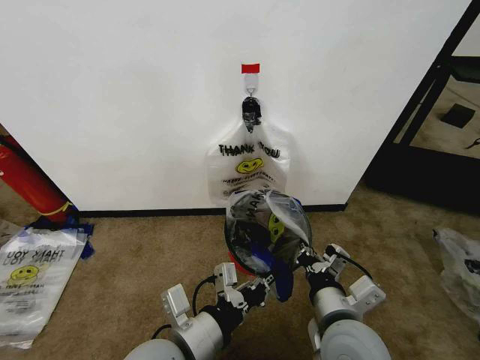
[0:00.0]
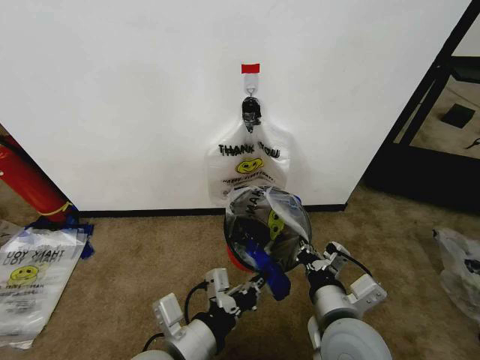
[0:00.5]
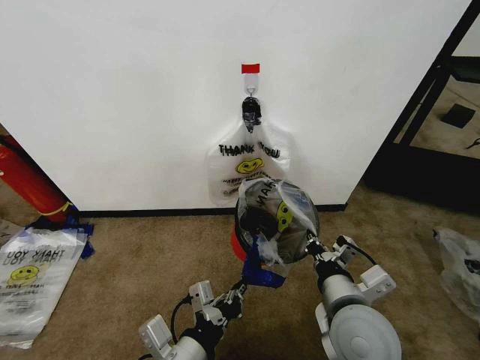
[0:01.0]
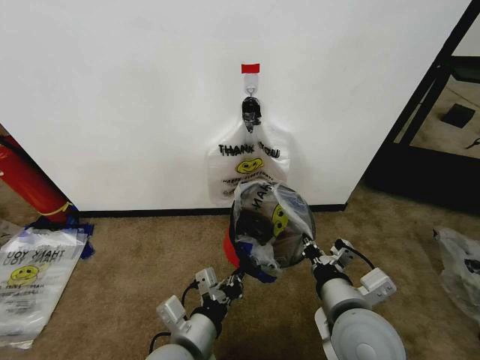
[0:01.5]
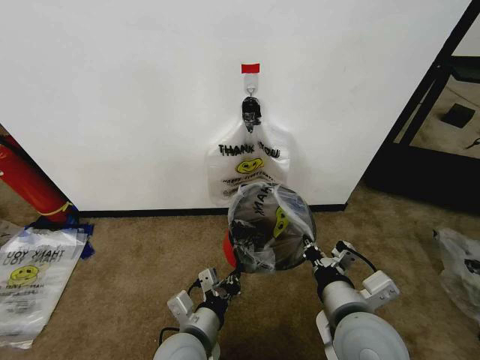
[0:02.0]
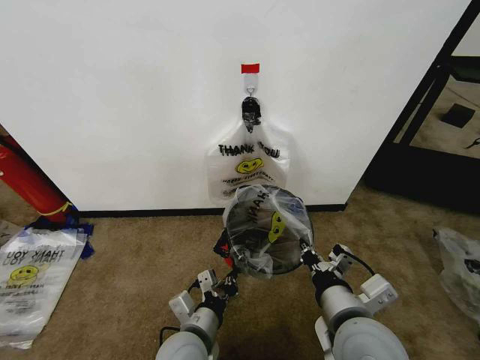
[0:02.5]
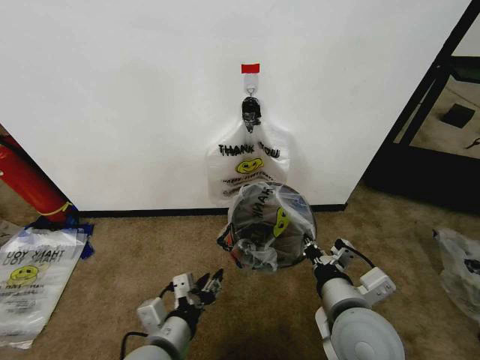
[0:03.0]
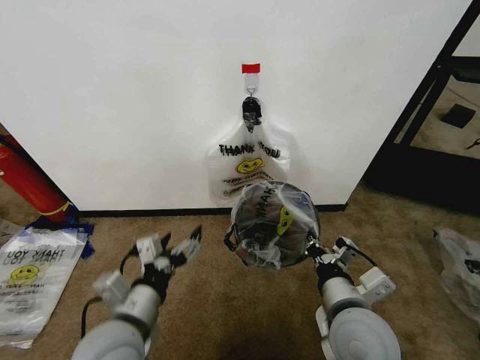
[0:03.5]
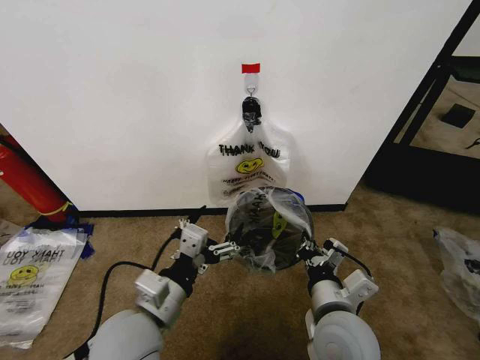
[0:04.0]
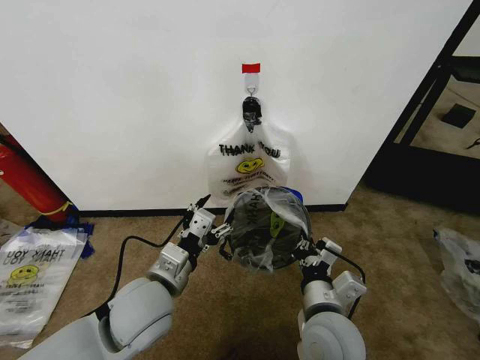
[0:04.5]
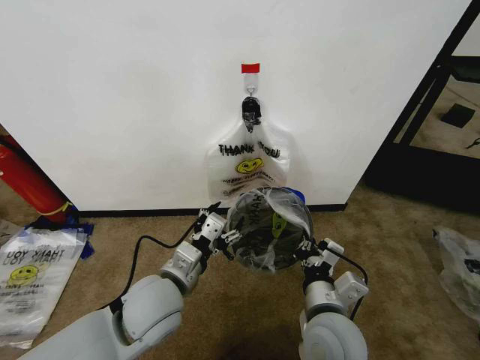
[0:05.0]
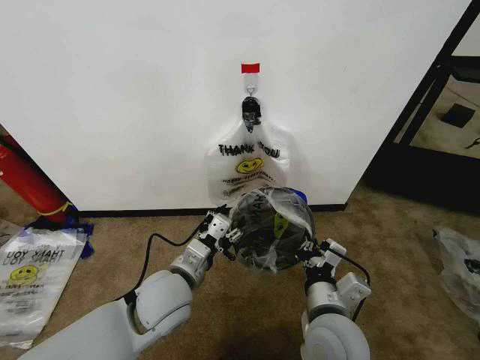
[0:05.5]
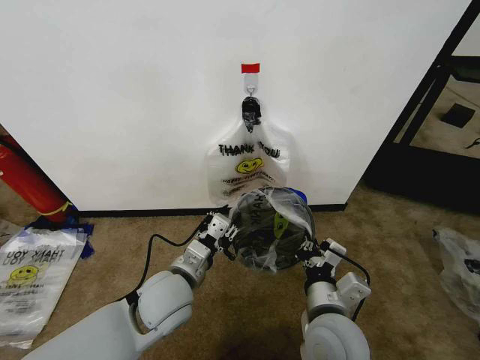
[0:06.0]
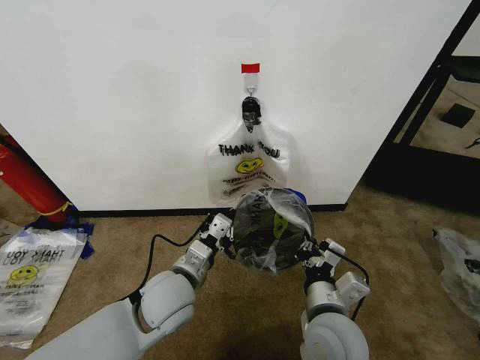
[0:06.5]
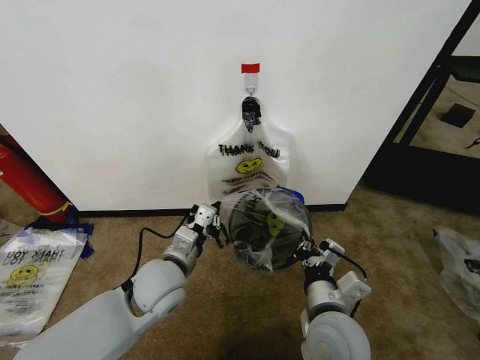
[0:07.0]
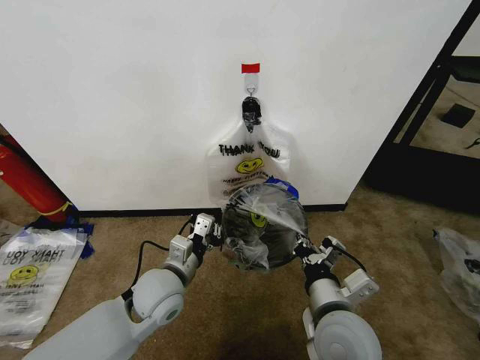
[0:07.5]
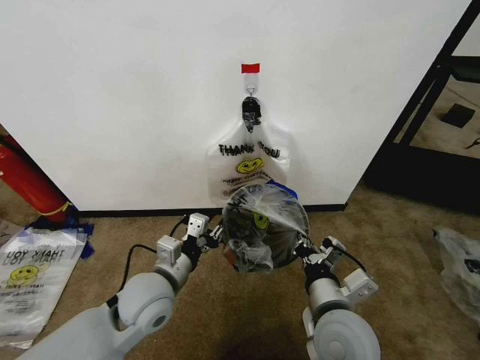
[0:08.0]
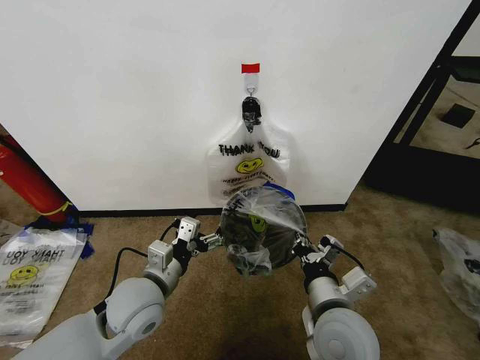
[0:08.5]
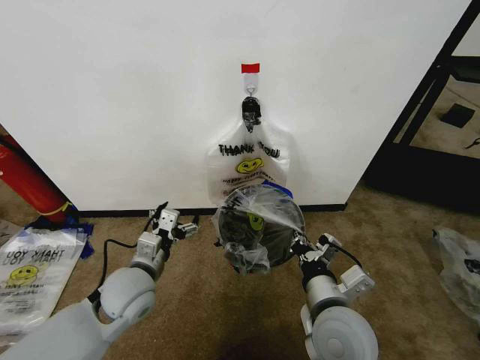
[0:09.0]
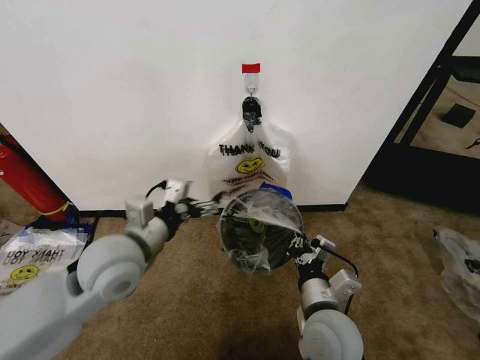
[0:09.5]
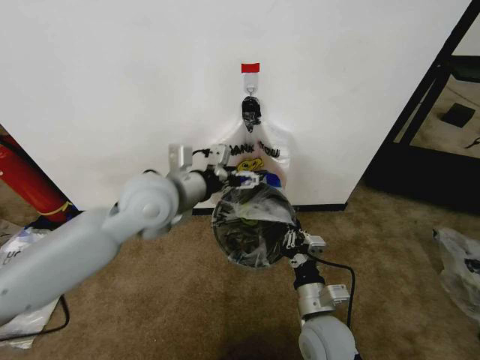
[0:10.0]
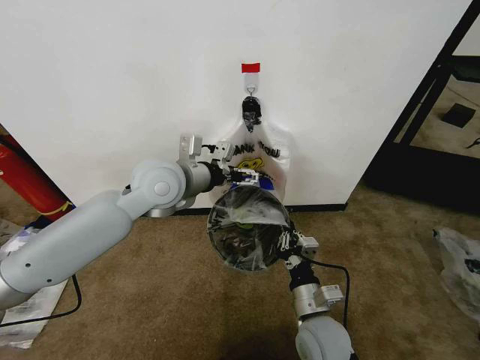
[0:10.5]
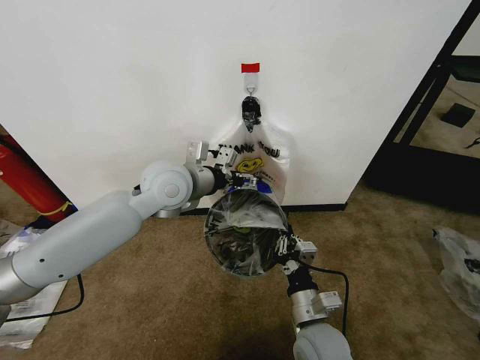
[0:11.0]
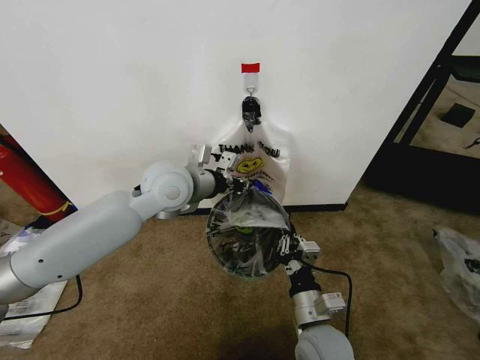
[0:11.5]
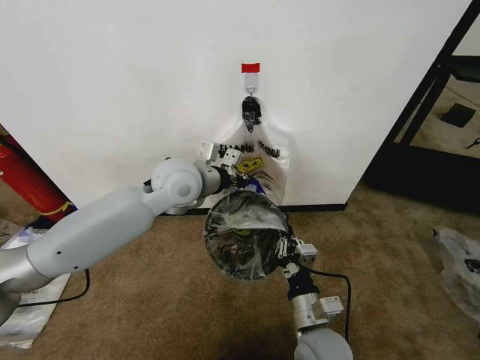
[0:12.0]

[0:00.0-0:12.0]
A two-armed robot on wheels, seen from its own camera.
Task of the whole recording: Pick up the garbage bag from the wall and place it over the trash bin.
0:00.0 to 0:02.0: The left gripper shifts about 10 cm downward.
0:02.0 to 0:04.0: The left gripper travels upward and to the left by about 10 cm, and opens.
0:04.0 to 0:06.0: The left gripper travels forward by some 10 cm, and closes up.
0:06.0 to 0:08.0: The left gripper closes and opens again.
0:08.0 to 0:10.0: The left gripper heads upward and forward, covering some 20 cm, and opens. The right gripper is displaced downward by some 10 cm.
0:10.0 to 0:12.0: The left gripper heads forward, covering about 5 cm, and closes up.

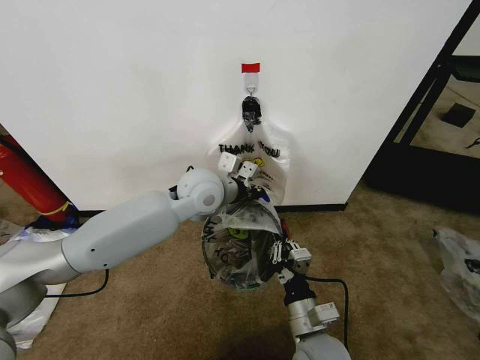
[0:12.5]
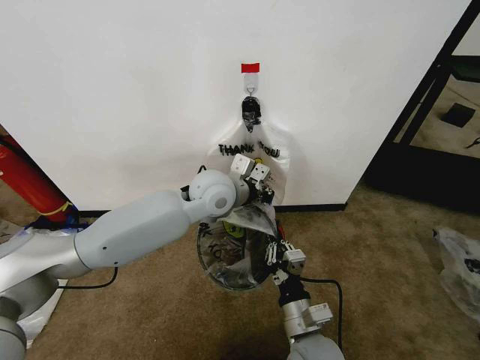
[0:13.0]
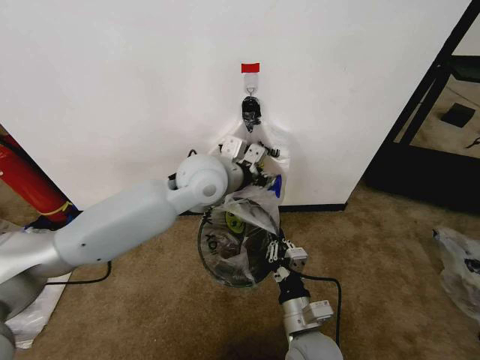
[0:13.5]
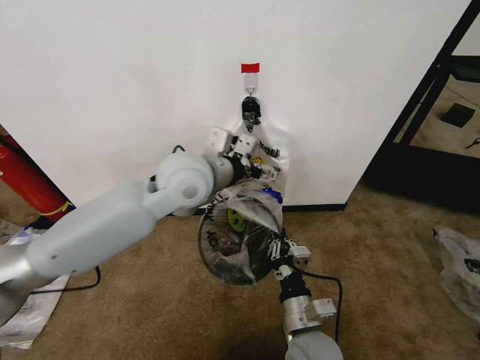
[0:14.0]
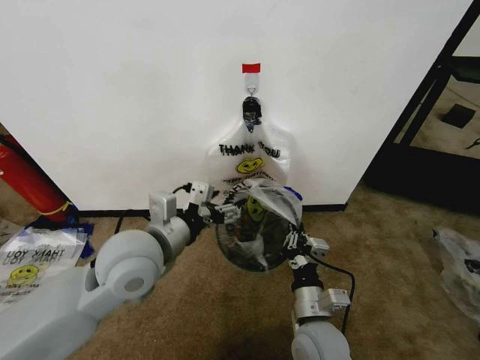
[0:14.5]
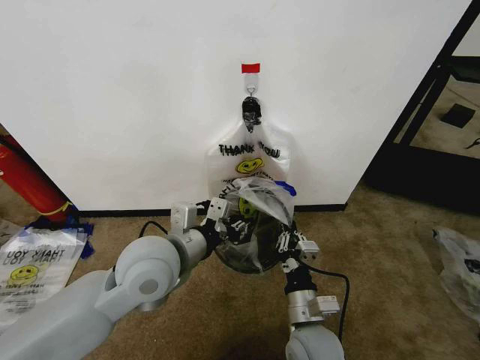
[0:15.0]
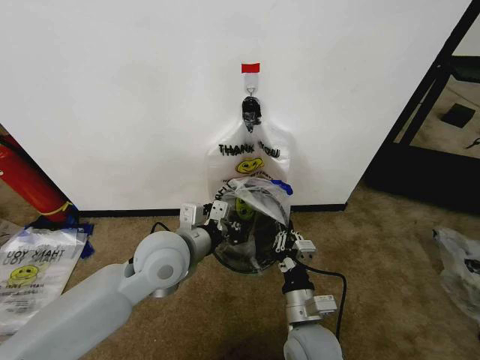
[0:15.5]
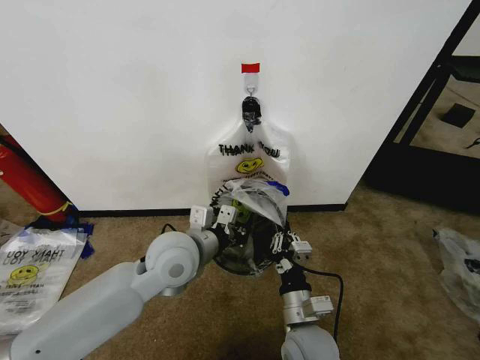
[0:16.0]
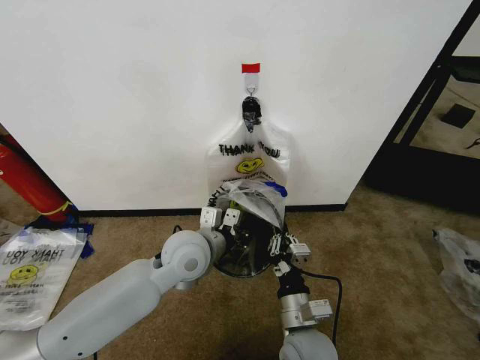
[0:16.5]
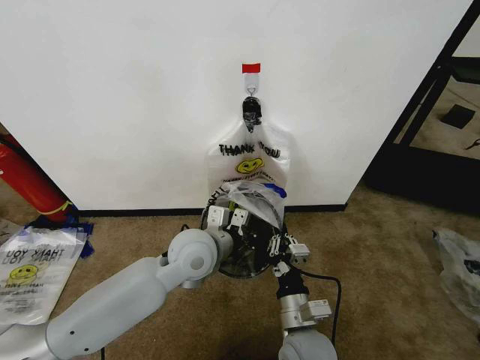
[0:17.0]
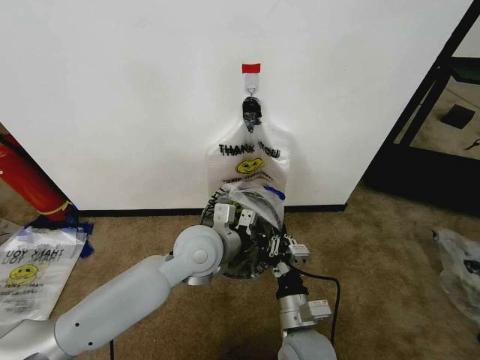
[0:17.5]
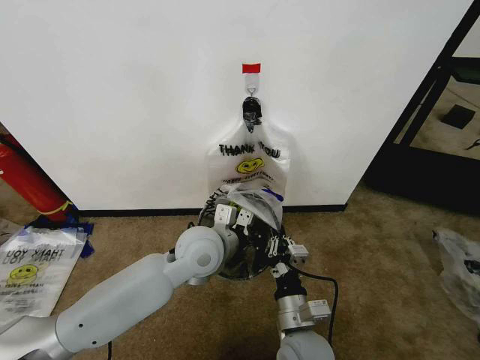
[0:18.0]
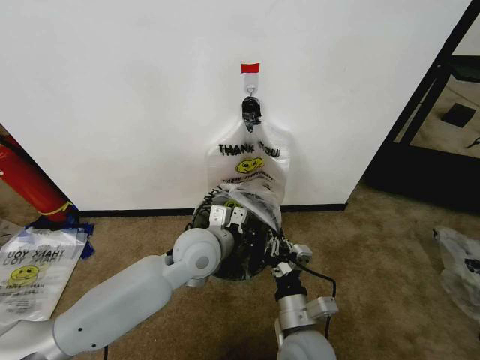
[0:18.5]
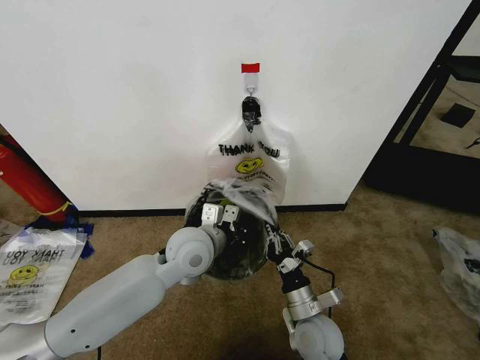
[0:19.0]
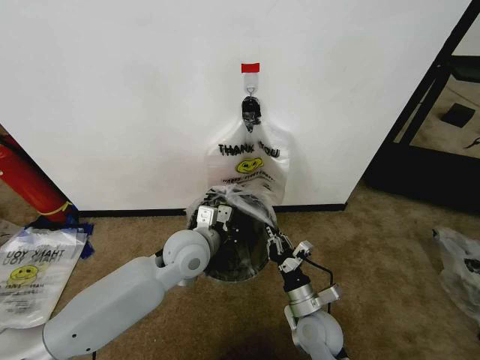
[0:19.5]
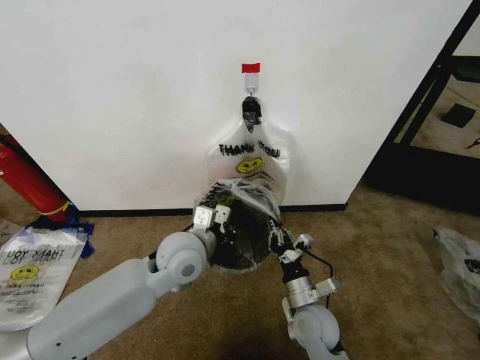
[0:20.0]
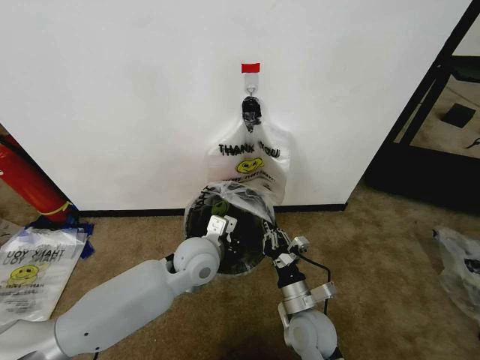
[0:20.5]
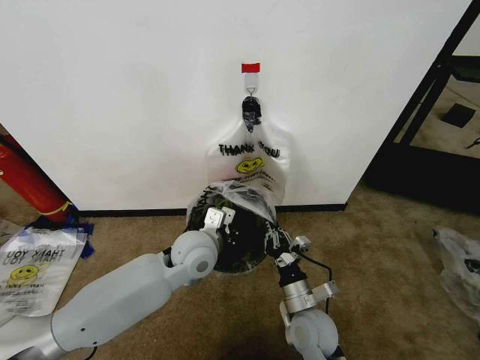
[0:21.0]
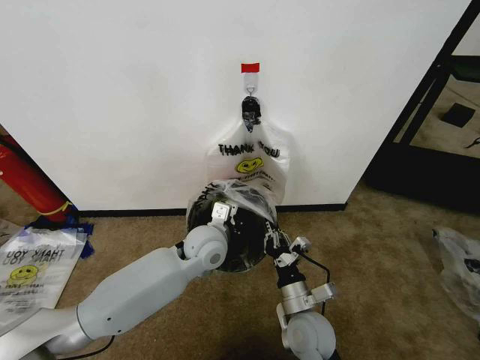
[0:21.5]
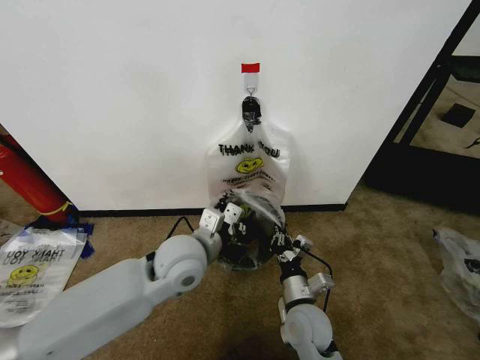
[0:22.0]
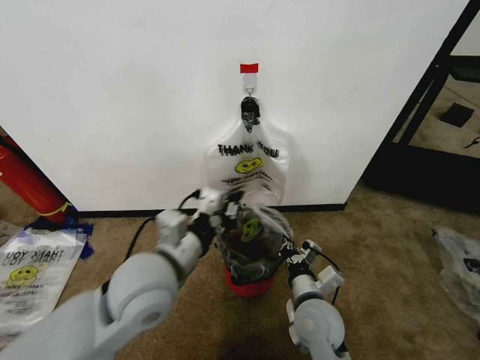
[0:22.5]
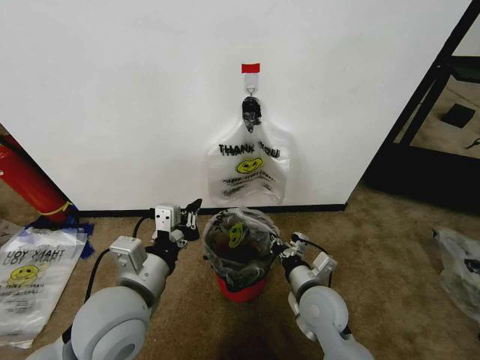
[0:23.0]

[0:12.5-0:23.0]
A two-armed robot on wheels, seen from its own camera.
Task of the whole recording: Pick up the garbage bag from the wall and place it over the trash bin.
0:12.5 to 0:14.5: The left gripper travels backward and to the left by approximately 20 cm, and opens its fingers.
0:14.5 to 0:16.5: The left gripper heads downward, to the right and forward, covering roughly 10 cm, and closes its fingers.
0:16.5 to 0:19.0: The right gripper ends up about 5 cm from where it was.
0:19.0 to 0:21.0: There are only small adjustments of the grippers.
0:21.0 to 0:23.0: The right gripper ends up roughly 5 cm from where it was, while the left gripper shifts some 20 cm backward, to the left and upward.

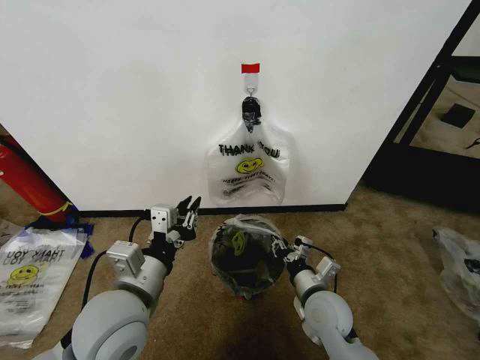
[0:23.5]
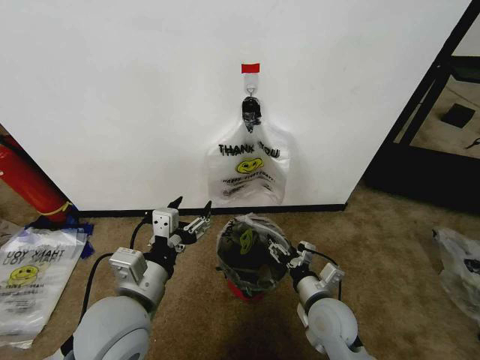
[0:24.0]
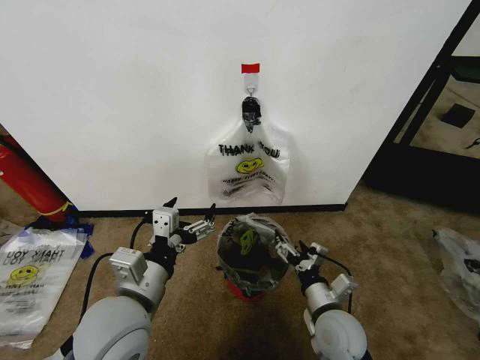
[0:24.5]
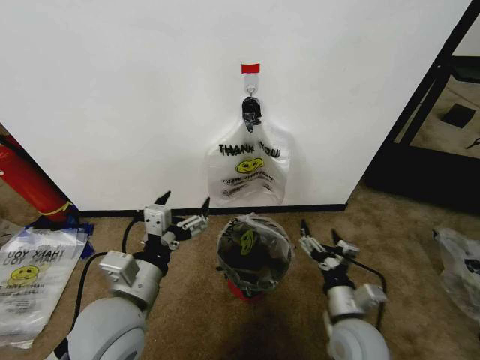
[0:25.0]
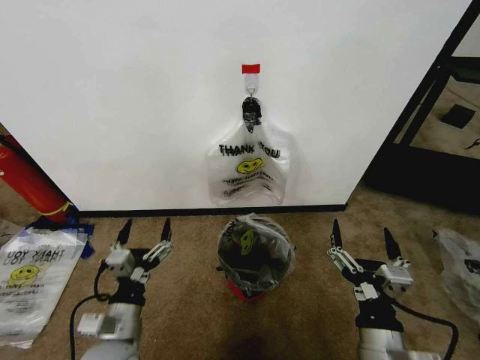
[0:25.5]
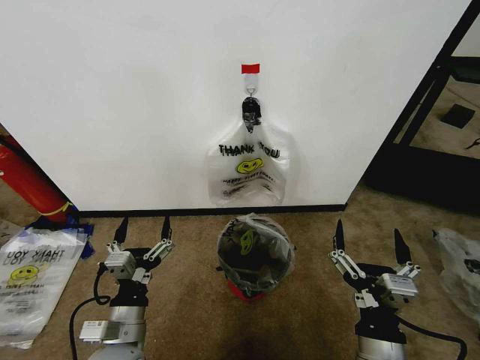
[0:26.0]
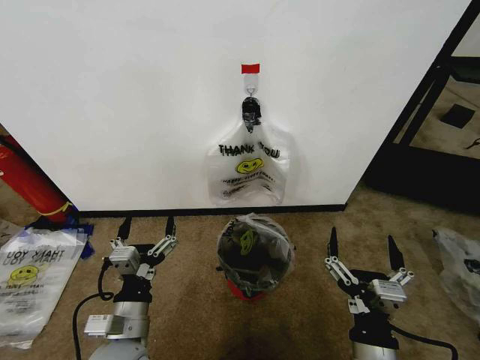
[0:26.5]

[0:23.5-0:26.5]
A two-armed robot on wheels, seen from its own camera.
Task of the whole recording: Pick up the garbage bag from the wall and place it over the trash bin.
0:23.5 to 0:25.0: The left gripper opens up, while the right gripper heads backward, covering about 5 cm, and opens its fingers.
0:25.0 to 0:26.5: The left gripper moves downward, roughly 10 cm, while the right gripper goes roughly 15 cm backward and upward.
